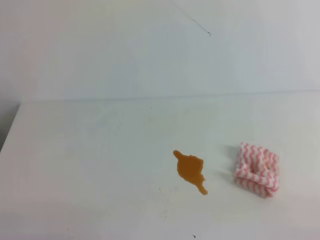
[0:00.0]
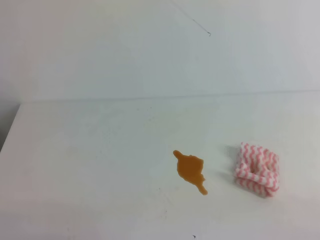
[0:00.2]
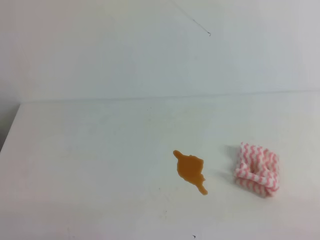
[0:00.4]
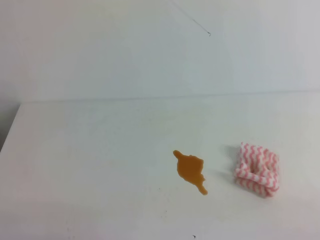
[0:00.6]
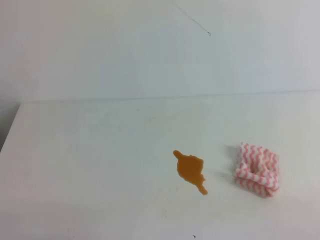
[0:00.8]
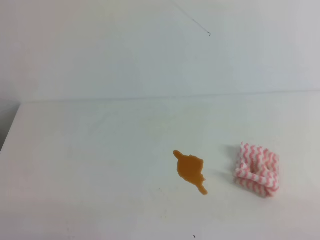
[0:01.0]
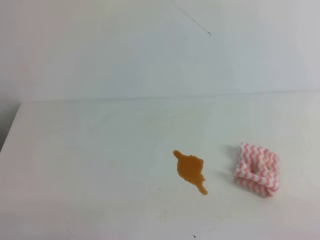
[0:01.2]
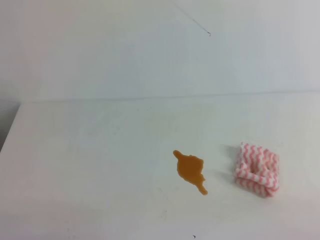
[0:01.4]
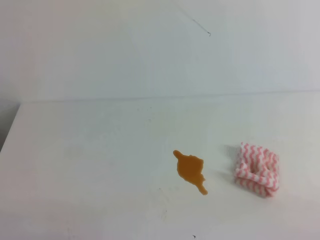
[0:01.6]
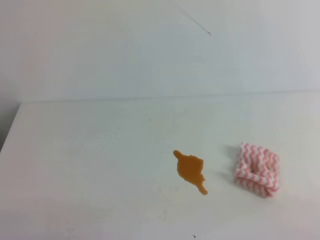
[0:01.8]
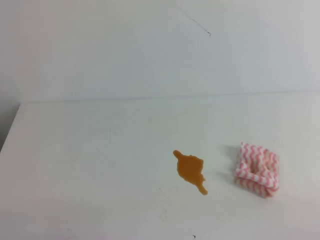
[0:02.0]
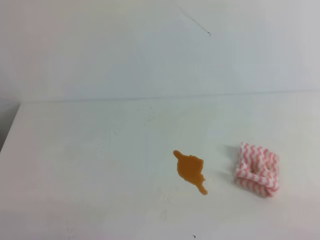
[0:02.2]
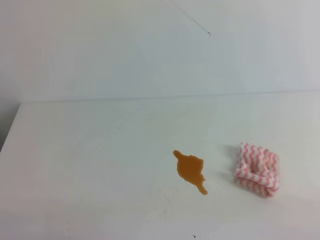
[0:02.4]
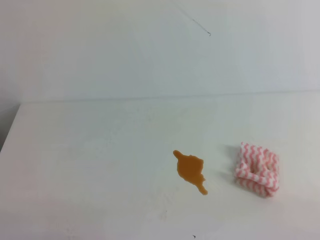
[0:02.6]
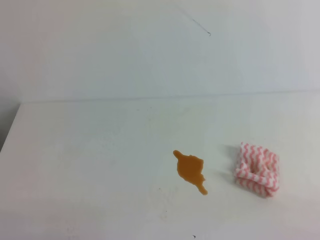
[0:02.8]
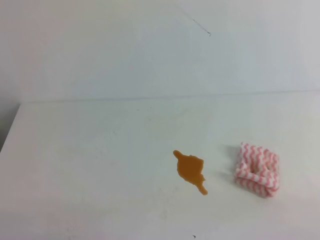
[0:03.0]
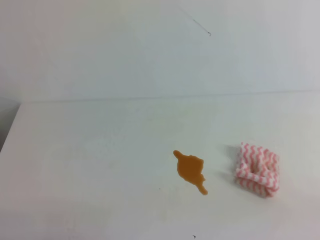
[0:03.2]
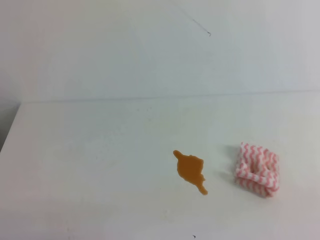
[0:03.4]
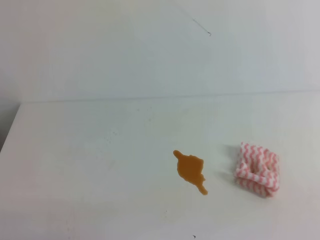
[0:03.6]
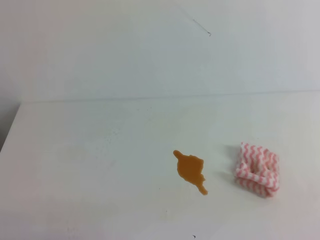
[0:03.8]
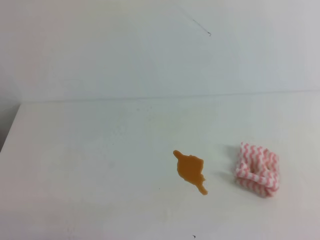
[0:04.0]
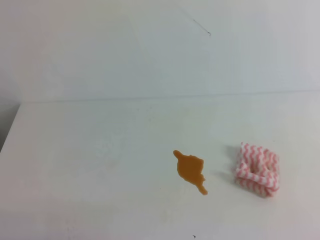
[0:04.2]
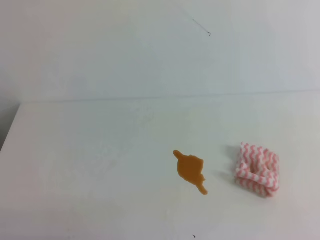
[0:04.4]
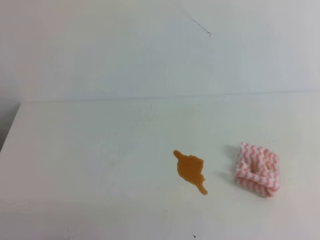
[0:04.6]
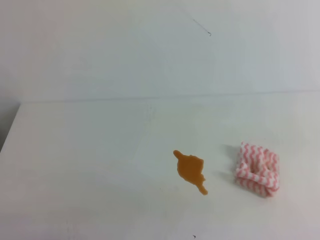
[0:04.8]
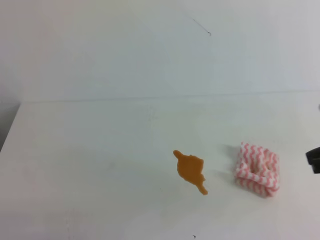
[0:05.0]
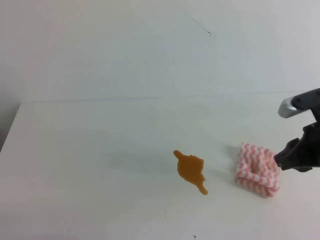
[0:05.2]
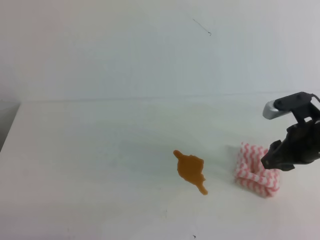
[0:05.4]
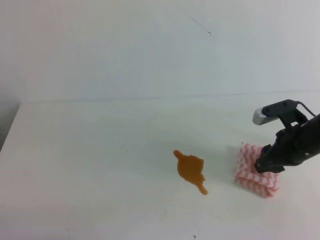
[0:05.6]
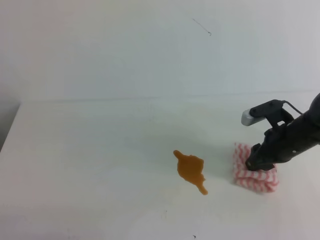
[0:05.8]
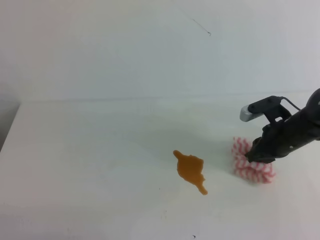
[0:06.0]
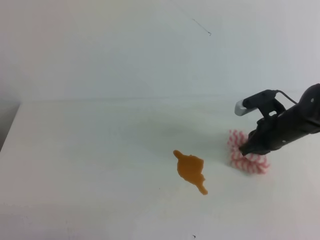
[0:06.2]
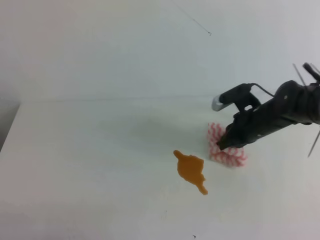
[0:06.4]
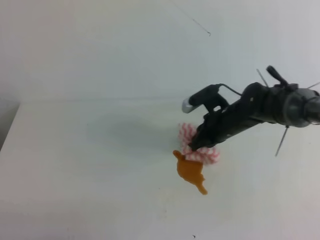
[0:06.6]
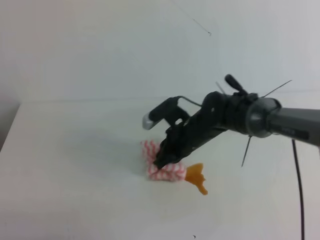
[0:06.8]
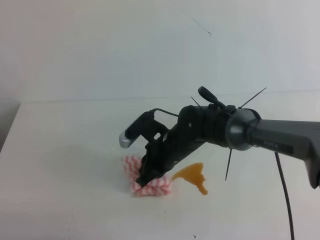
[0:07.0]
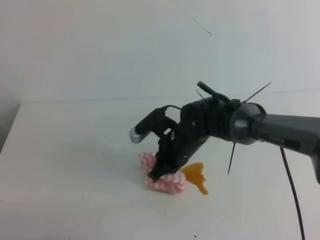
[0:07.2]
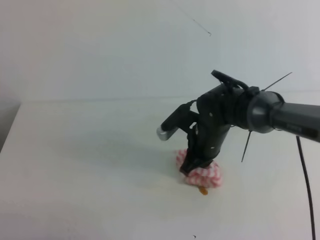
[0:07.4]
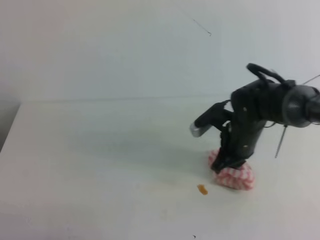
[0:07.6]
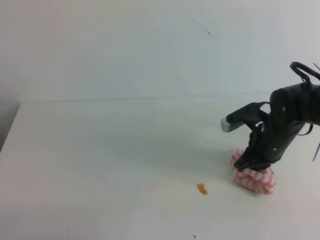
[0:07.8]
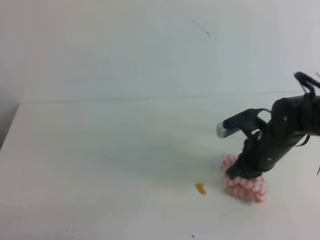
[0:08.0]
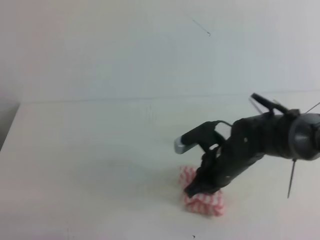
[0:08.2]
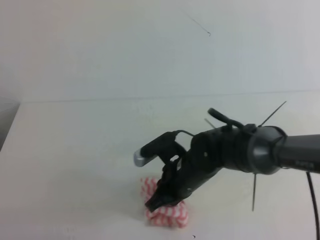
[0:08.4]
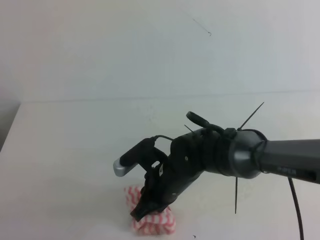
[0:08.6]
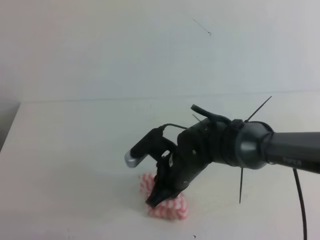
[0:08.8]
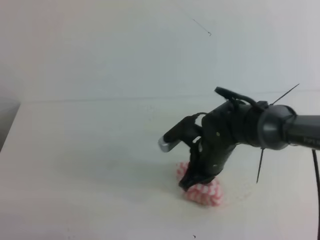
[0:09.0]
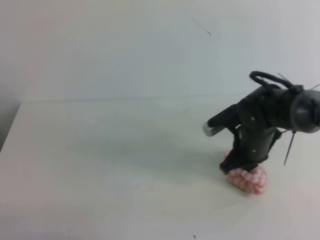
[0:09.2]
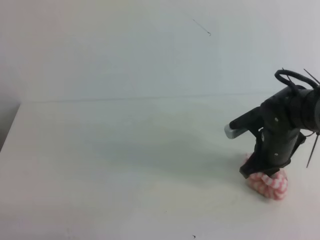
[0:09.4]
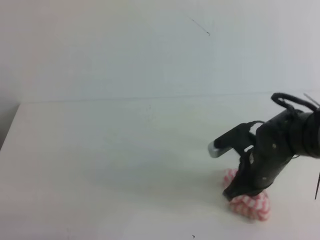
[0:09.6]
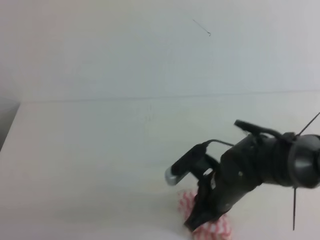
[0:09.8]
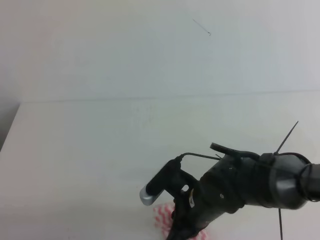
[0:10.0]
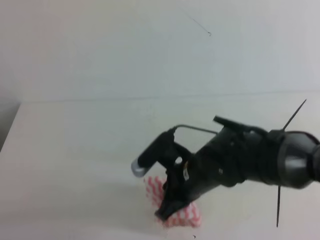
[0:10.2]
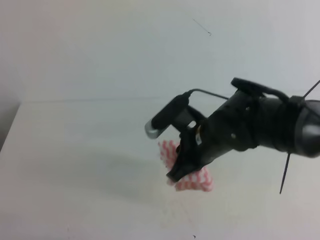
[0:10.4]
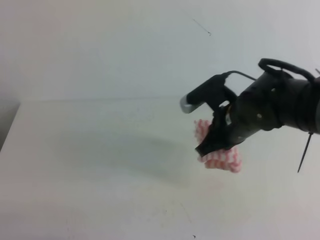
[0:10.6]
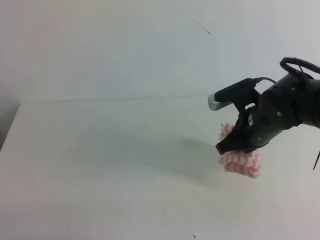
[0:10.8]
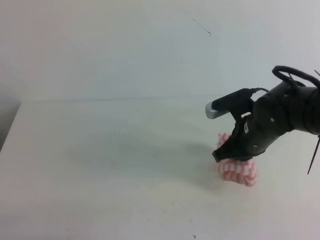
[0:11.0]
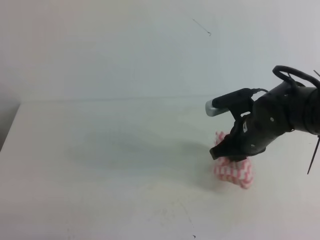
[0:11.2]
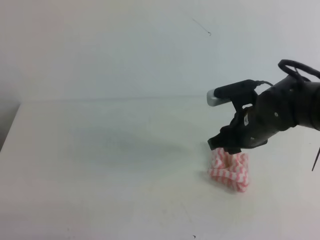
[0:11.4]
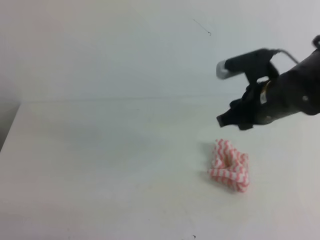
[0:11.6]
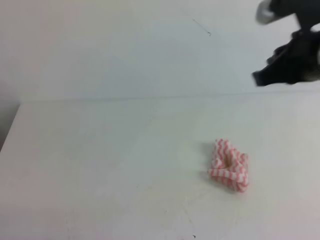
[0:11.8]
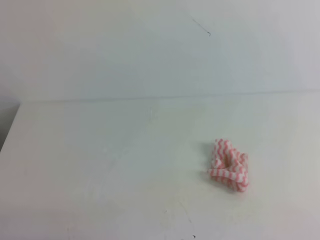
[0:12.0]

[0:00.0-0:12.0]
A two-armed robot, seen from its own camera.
0:00.0 to 0:03.0: Both grippers stay put.
0:04.4 to 0:06.0: The right gripper moves forward and downward, some 35 cm, and opens its fingers.
0:06.0 to 0:07.6: The right gripper moves to the left, roughly 10 cm, and closes its fingers.
0:07.6 to 0:09.0: The right gripper moves left and right over some 15 cm, changing direction 2 times.
0:09.0 to 0:10.4: The right gripper is displaced upward by about 5 cm, and reaches approximately 10 cm to the right, then returns.
0:10.4 to 0:12.0: The right gripper heads upward and to the right, covering approximately 25 cm, and opens, then closes once more.

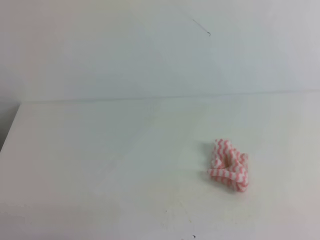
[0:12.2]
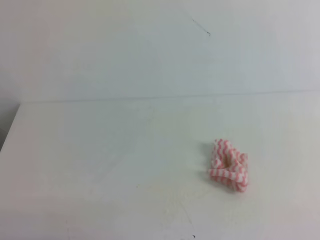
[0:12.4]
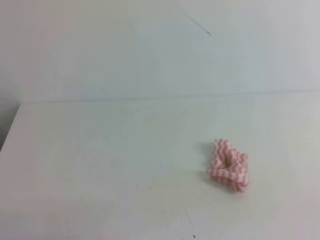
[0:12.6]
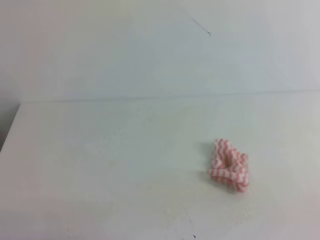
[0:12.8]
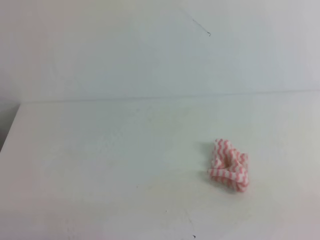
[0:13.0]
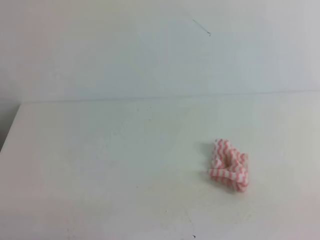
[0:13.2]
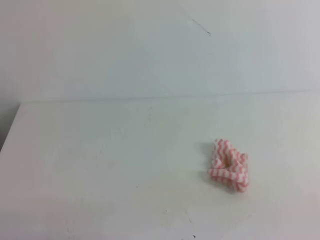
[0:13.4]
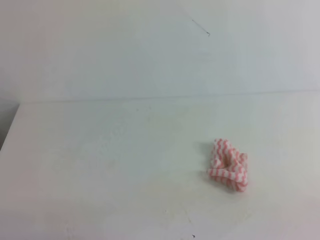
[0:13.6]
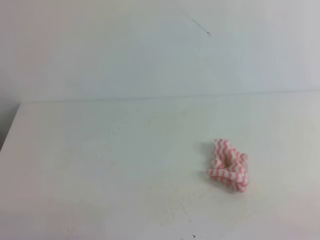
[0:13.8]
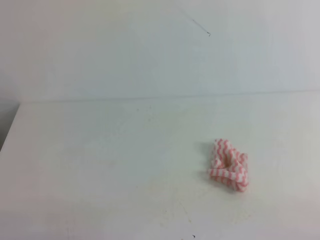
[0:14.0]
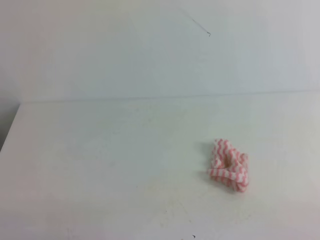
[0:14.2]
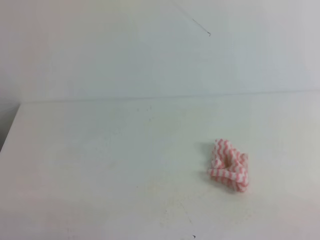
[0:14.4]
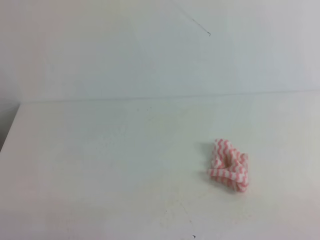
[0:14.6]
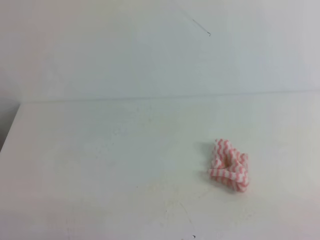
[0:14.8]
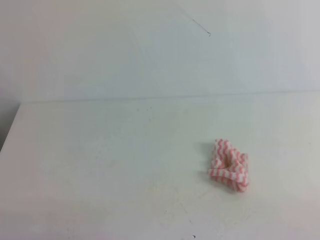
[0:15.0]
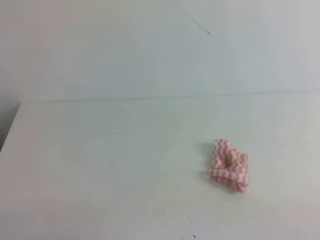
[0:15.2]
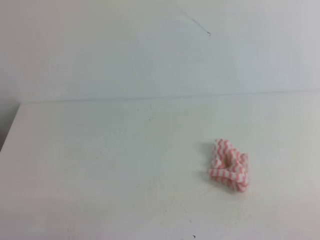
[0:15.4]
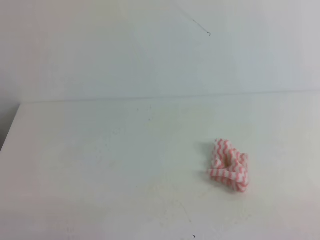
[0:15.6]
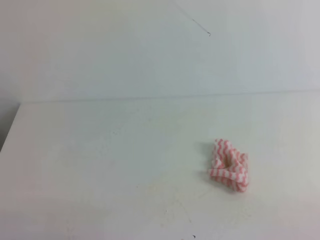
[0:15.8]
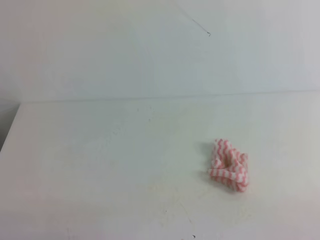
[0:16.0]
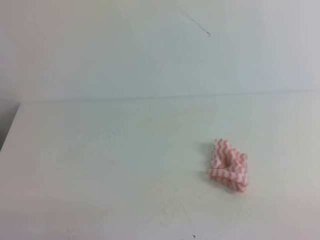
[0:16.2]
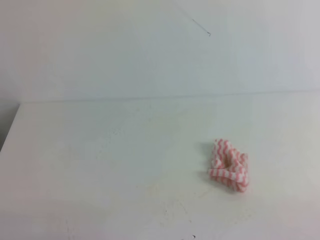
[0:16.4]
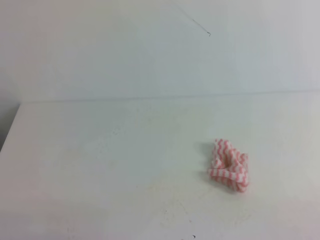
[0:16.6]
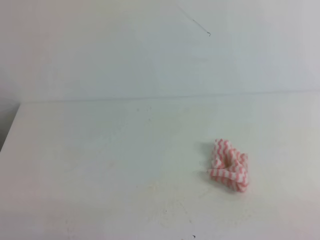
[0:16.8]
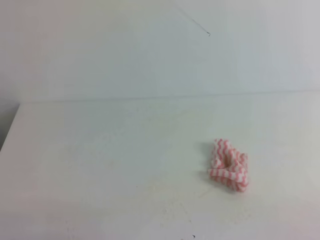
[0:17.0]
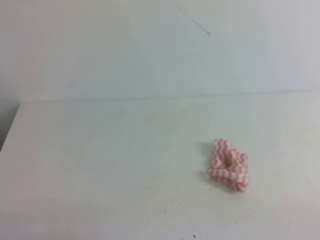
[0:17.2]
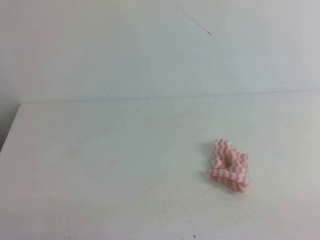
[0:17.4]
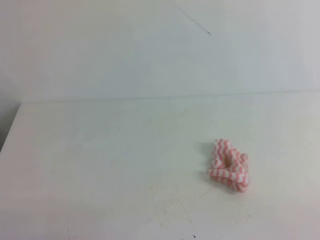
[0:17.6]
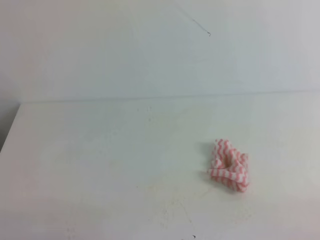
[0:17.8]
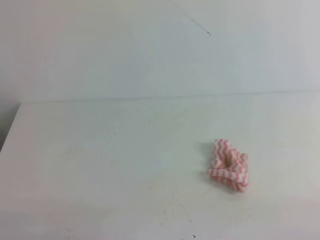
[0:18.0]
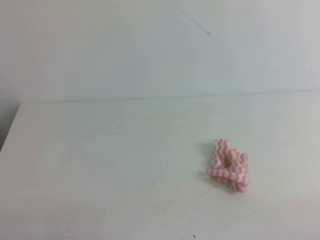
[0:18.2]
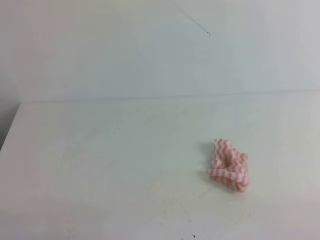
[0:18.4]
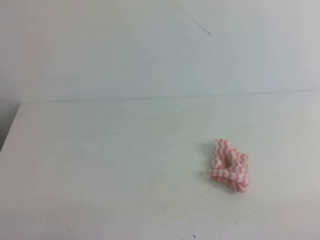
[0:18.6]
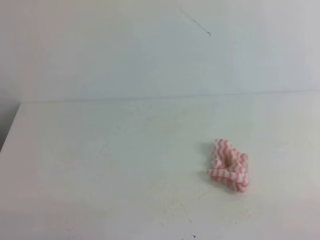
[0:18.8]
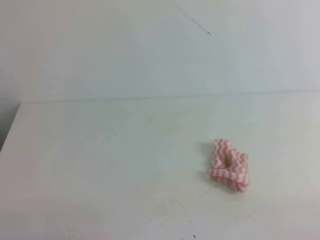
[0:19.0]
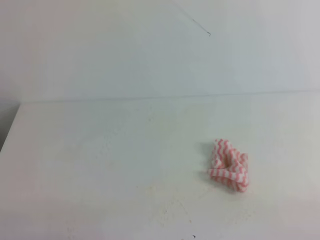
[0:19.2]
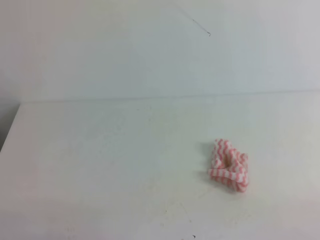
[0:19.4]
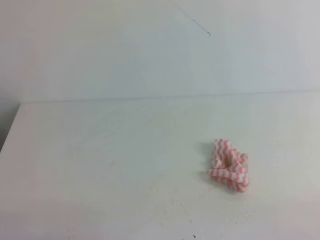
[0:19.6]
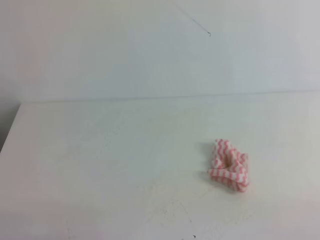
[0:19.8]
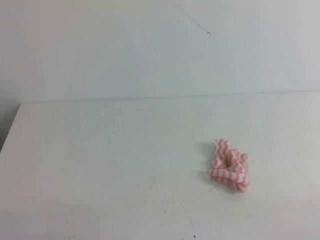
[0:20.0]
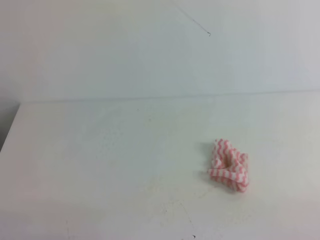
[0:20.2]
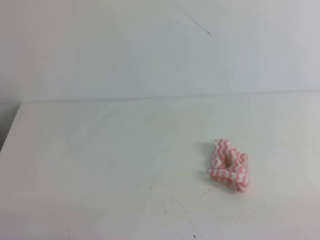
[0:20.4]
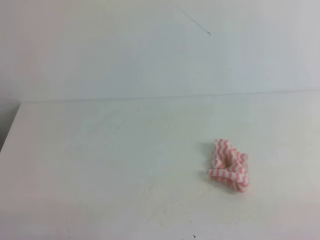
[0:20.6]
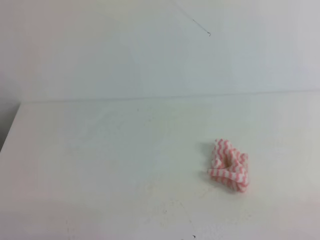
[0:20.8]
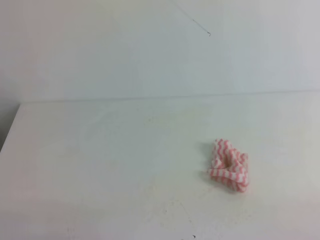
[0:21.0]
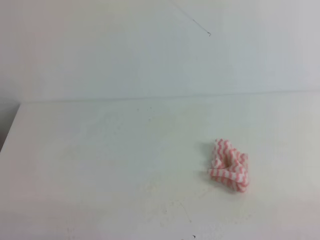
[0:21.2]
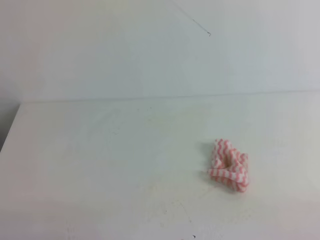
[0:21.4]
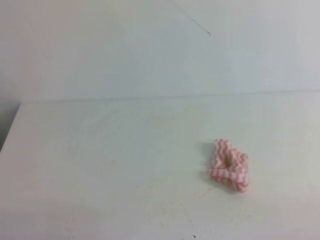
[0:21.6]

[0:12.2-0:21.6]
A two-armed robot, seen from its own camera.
0:15.4 to 0:17.0: Both grippers stay put.
0:18.4 to 0:21.6: The two grippers keep their place.
